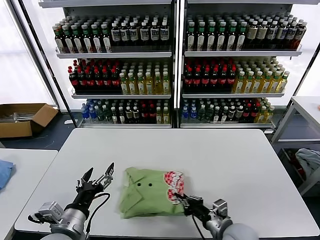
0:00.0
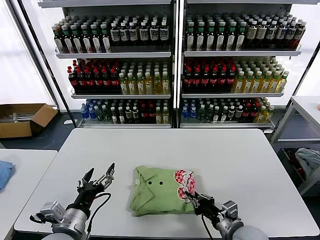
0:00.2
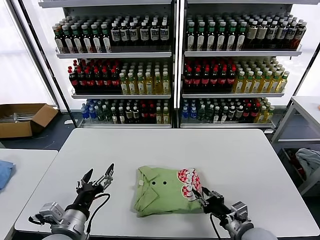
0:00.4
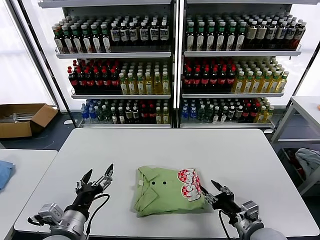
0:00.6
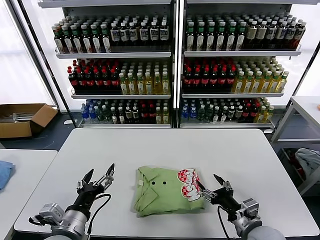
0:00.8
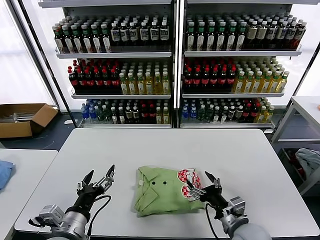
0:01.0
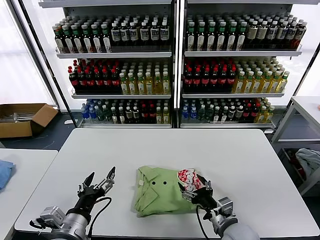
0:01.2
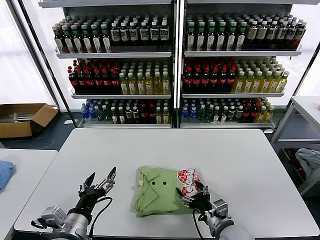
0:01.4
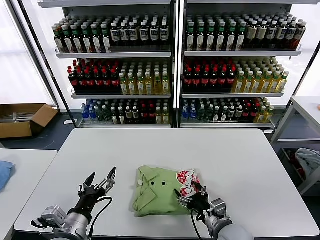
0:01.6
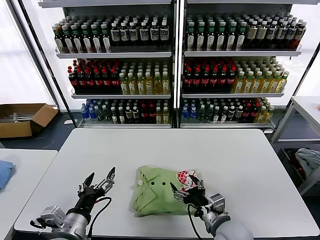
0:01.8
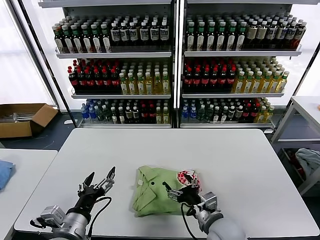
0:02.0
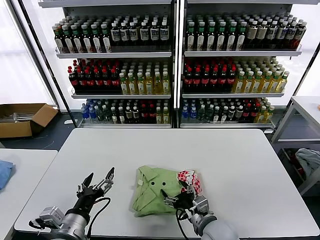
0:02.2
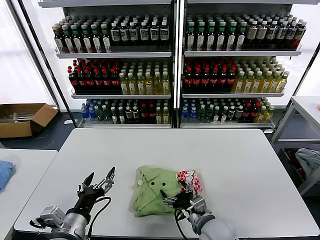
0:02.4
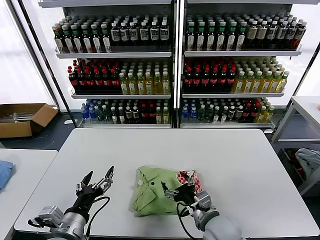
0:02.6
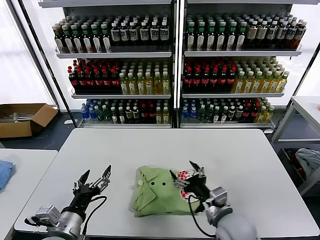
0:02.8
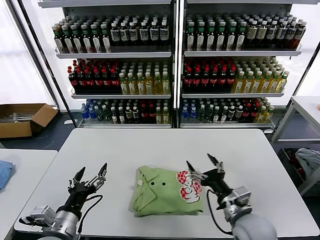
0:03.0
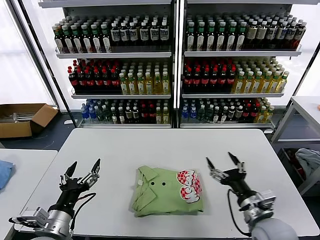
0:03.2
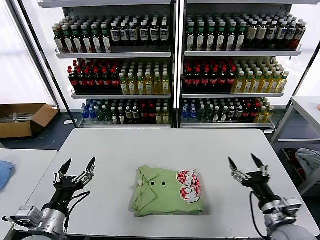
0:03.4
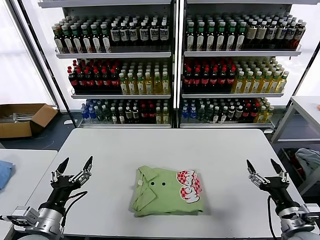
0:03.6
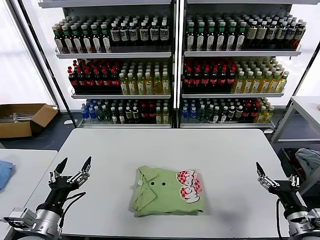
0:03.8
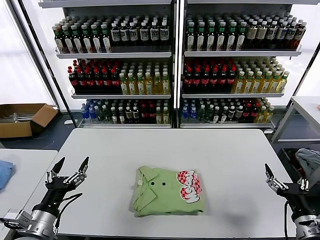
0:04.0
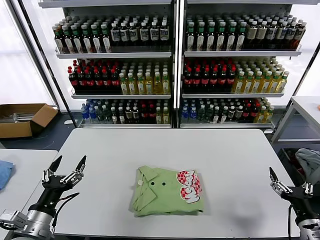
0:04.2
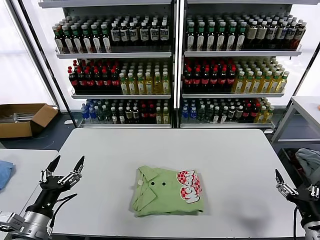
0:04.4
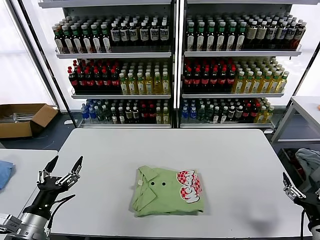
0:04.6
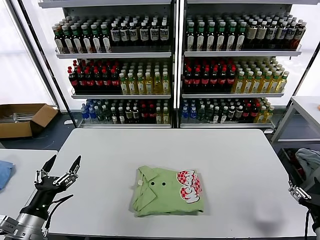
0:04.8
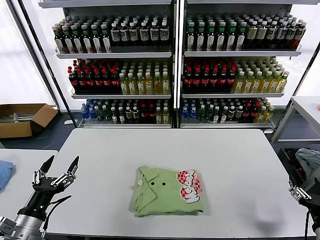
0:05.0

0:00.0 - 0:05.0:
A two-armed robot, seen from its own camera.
Task of the whole recording: fold and organize the clothes.
Step, 0:00.0 - 0:02.4: Drag the clothes to the center of the table.
0:00.0 - 0:01.6: The right gripper goes to the right and returns, roughly 5 cm each way, and opens.
0:01.6 - 0:03.4: The left gripper is displaced to the left by about 5 cm. The right gripper goes about 15 cm to the right and upward.
0:03.4 - 0:05.0: The left gripper goes roughly 5 cm to the left. Meanwhile the right gripper goes about 15 cm to the right and backward.

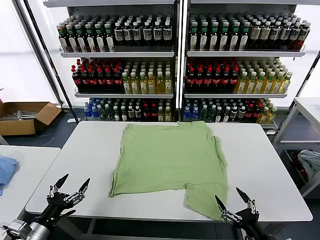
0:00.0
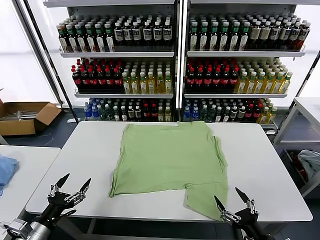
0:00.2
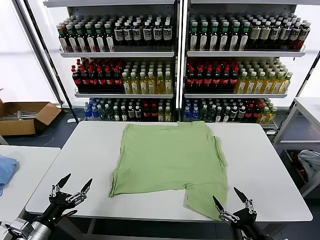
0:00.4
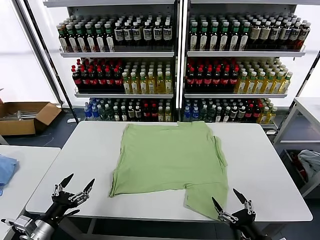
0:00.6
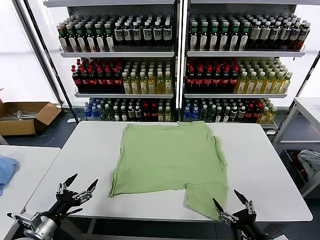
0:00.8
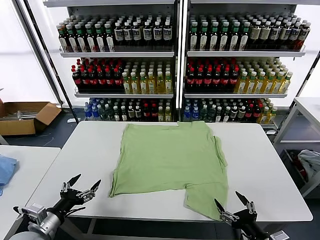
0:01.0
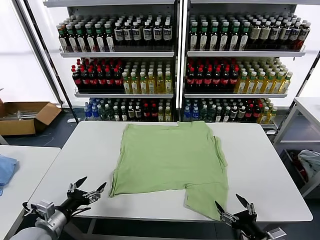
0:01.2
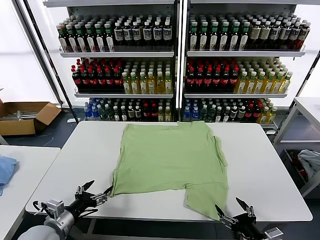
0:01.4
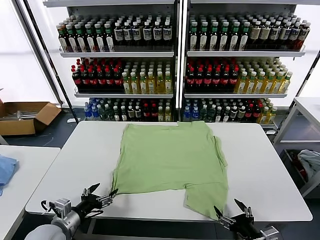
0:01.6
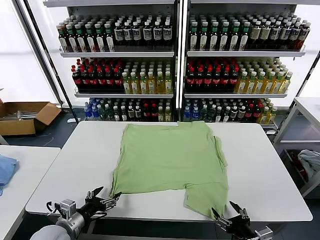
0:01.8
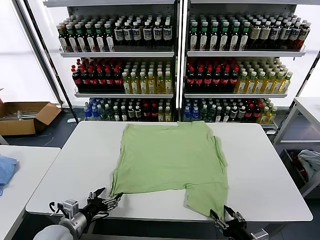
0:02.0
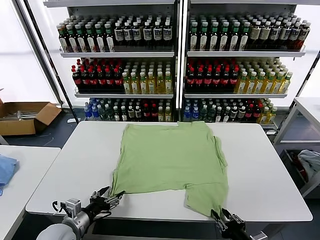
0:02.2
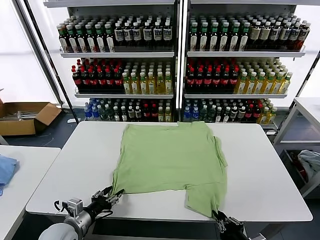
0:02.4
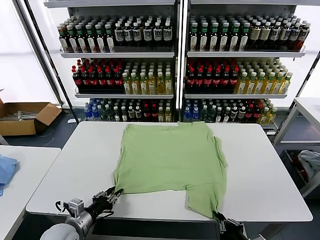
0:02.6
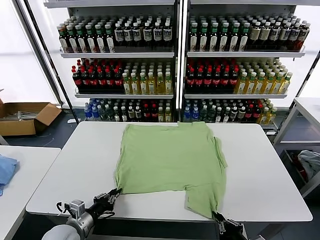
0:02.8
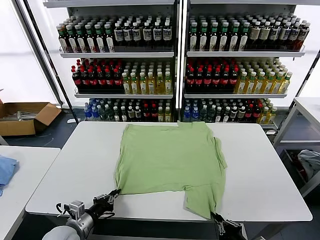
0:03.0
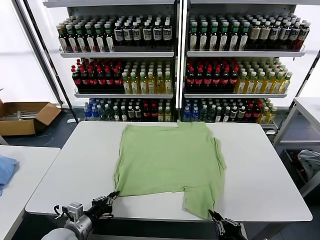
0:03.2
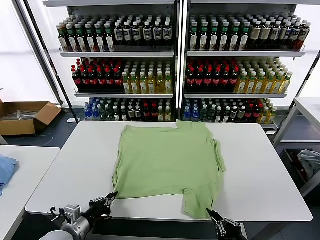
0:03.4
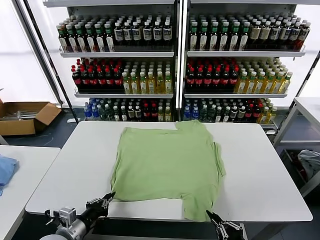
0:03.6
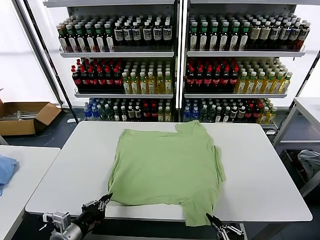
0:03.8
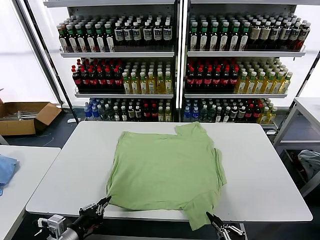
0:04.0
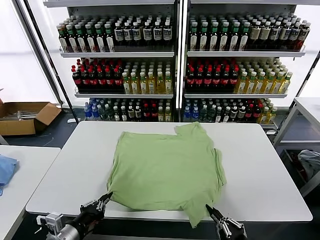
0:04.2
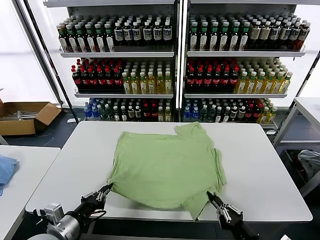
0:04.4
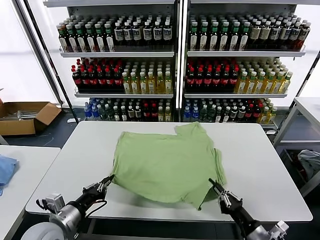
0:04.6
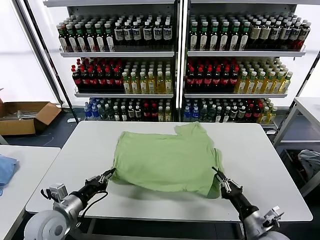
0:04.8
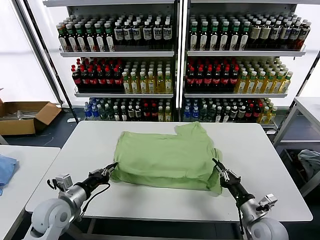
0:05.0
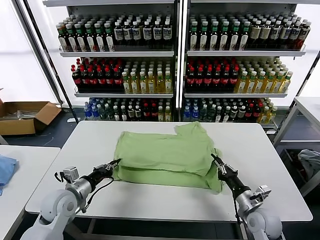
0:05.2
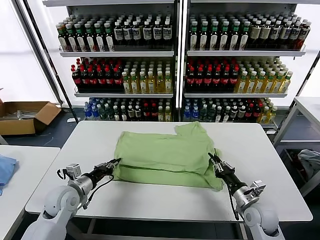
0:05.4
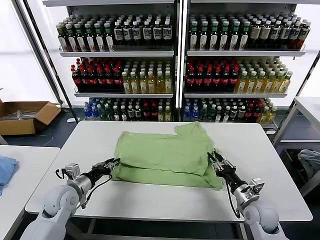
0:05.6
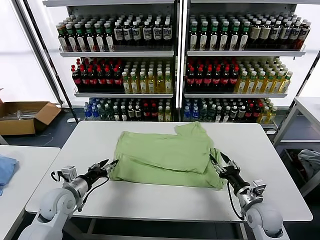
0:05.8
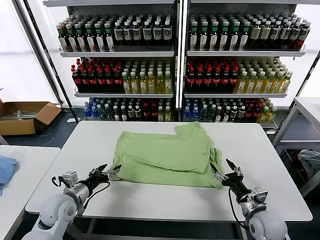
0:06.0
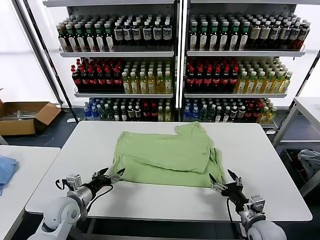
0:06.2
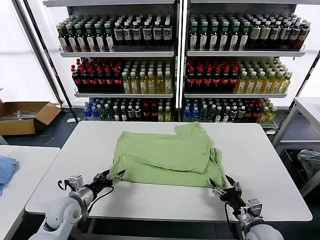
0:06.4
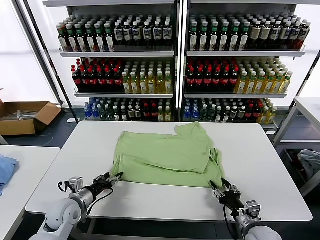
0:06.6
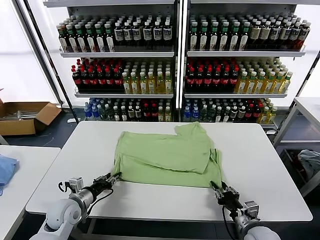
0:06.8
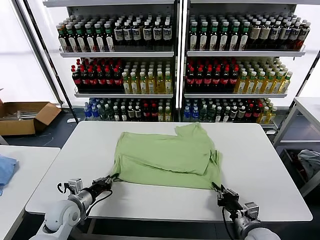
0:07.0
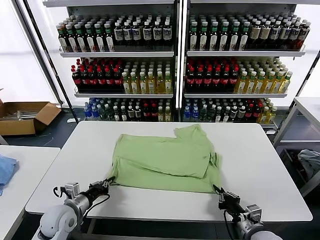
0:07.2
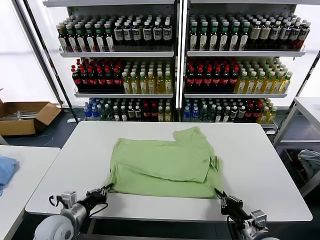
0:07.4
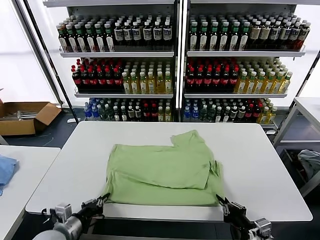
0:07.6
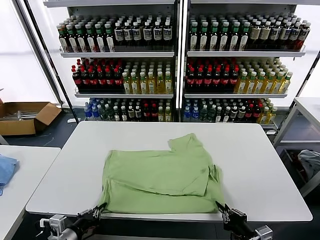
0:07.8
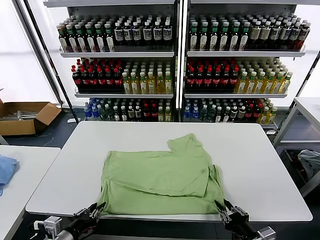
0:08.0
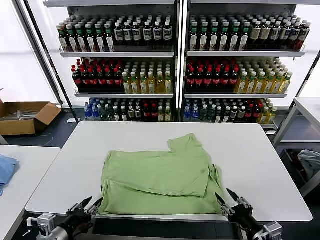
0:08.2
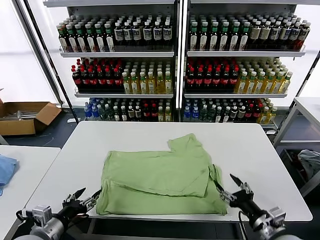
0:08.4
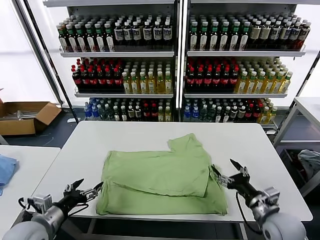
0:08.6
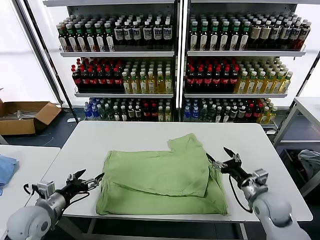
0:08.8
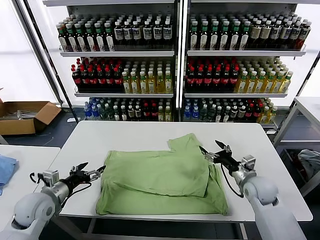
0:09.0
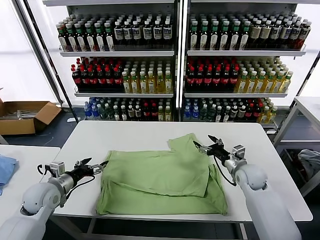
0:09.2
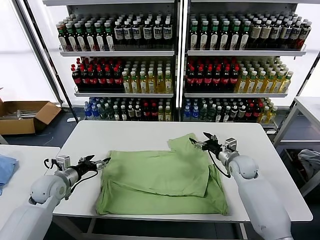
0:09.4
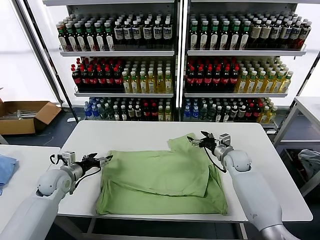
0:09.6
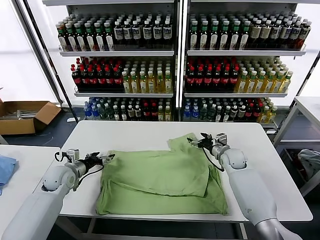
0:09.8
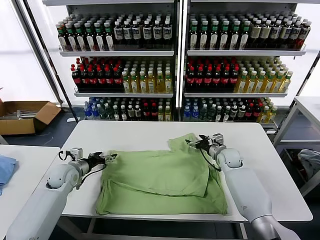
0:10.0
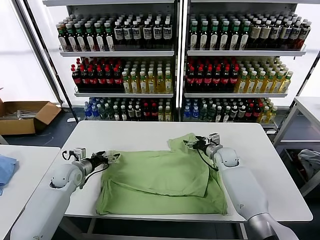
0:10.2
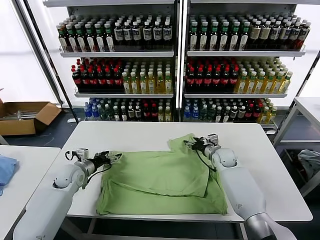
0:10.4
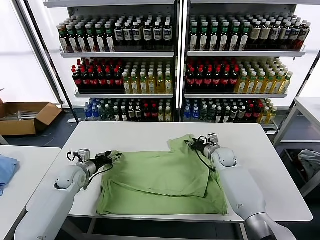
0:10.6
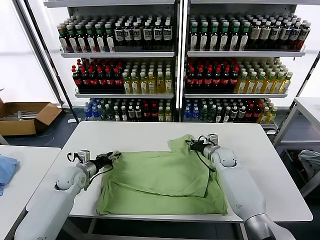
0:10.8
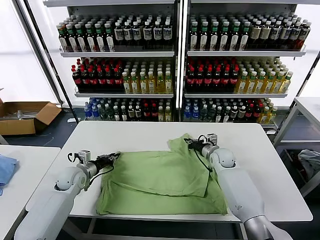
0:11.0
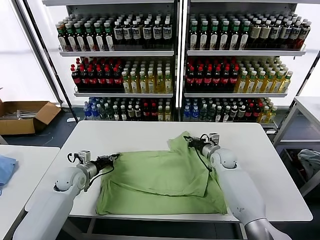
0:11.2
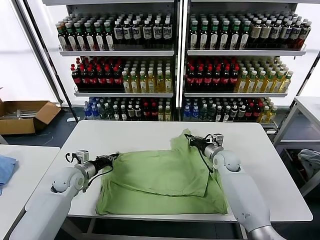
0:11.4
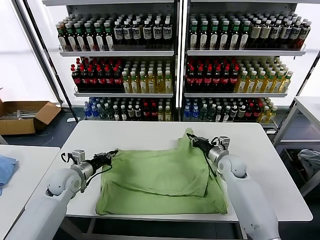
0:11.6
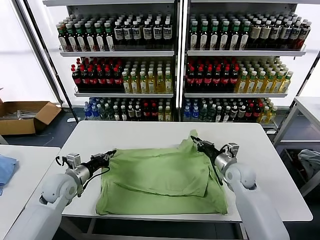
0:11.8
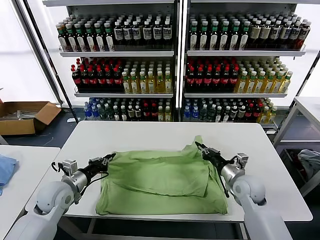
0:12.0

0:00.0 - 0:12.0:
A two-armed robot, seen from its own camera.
Task of the whole recording: fold and organize the clothes.
Step, 0:00.0 - 0:03.0: use both grippers simultaneously to clamp the lower edge of the clothing fabric.
Step, 0:03.2 - 0:05.6: use both grippers to drag the lower edge of the fabric forward and fold it over the upper edge.
Step, 0:05.8 - 0:08.0: Drag the clothes downward with both gripper.
Step, 0:08.2 - 0:11.0: use both grippers simultaneously to clamp the upper edge of the clothing fabric.
0:01.6 - 0:03.0: The right gripper closes, while the left gripper closes its fingers.
0:03.0 - 0:04.4: The left gripper is displaced upward by about 10 cm.
0:04.4 - 0:06.0: The grippers both shift forward by some 10 cm. The right gripper opens. The left gripper opens up.
0:06.0 - 0:07.6: The grippers both shift backward by about 10 cm. The left gripper closes its fingers. Meanwhile the right gripper closes.
0:07.6 - 0:09.0: The left gripper shifts approximately 10 cm forward, to the left and upward, and opens. The right gripper moves forward, about 25 cm, and opens up.
0:09.0 - 0:10.4: The left gripper is displaced forward and downward by about 15 cm; the right gripper moves forward and to the left, approximately 15 cm, and closes its fingers.
0:10.4 - 0:12.0: The right gripper goes some 15 cm backward, and closes its fingers; the left gripper is displaced backward and upward by about 10 cm, and closes.

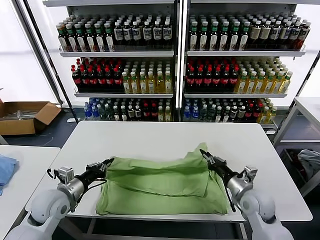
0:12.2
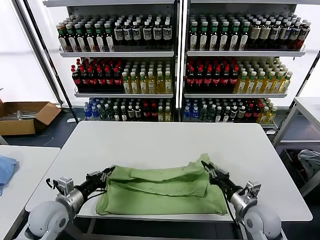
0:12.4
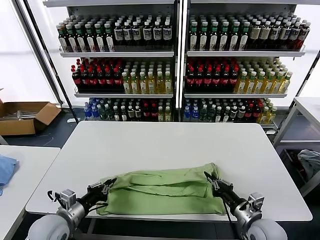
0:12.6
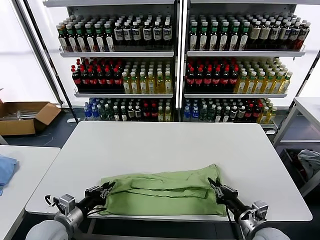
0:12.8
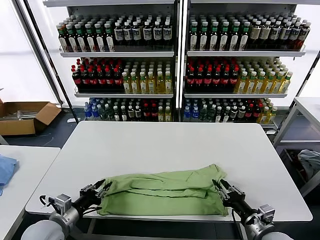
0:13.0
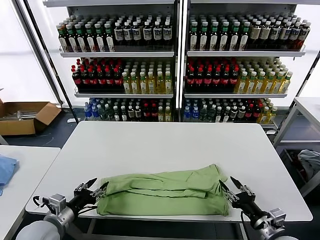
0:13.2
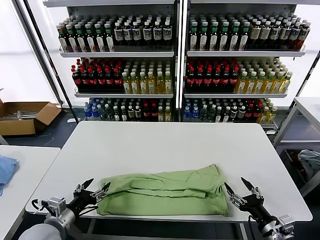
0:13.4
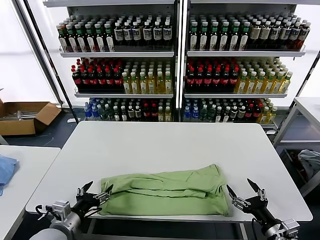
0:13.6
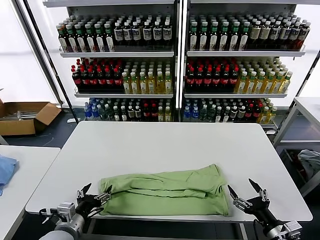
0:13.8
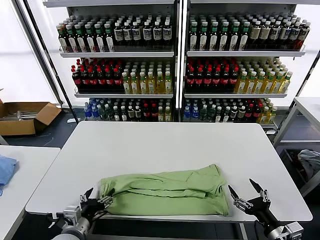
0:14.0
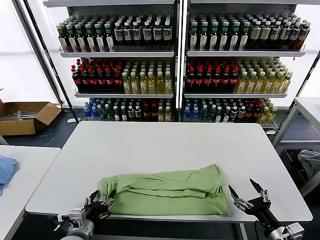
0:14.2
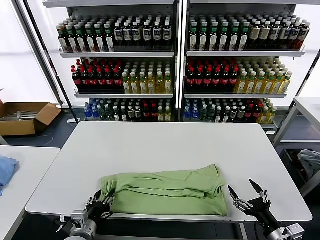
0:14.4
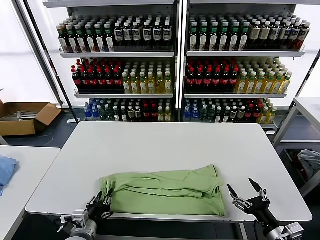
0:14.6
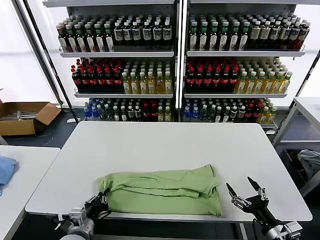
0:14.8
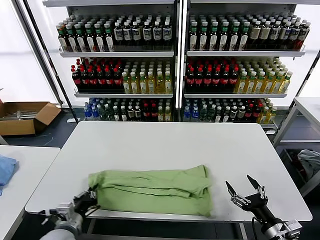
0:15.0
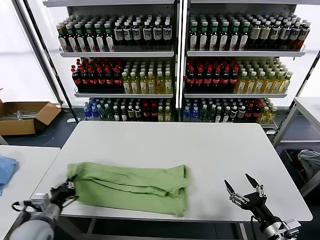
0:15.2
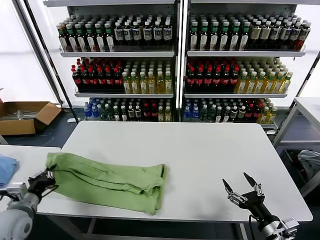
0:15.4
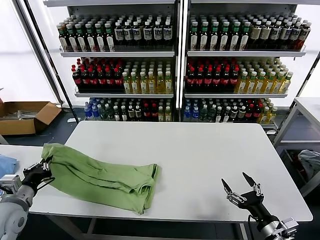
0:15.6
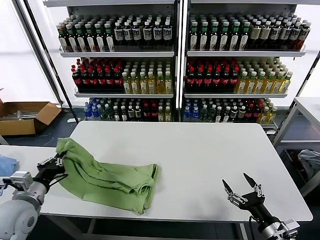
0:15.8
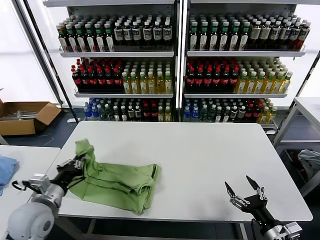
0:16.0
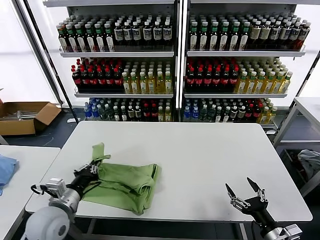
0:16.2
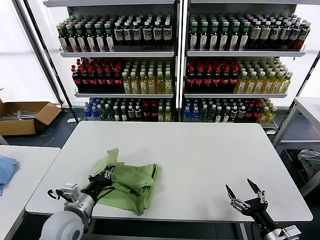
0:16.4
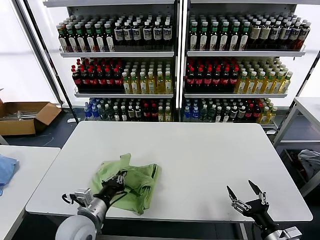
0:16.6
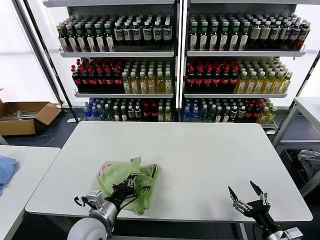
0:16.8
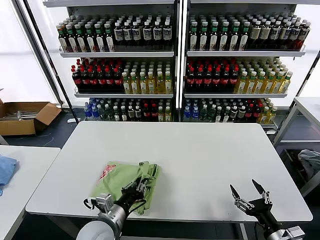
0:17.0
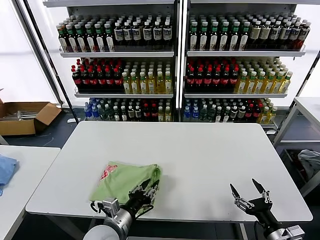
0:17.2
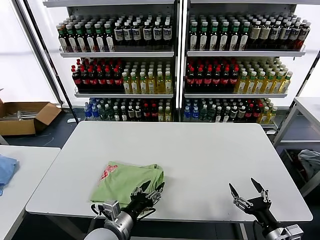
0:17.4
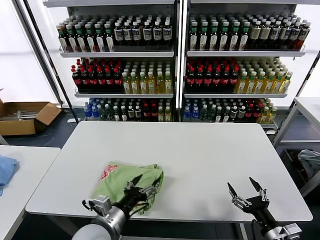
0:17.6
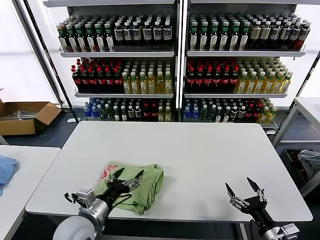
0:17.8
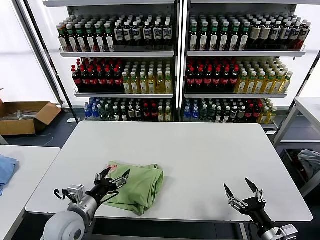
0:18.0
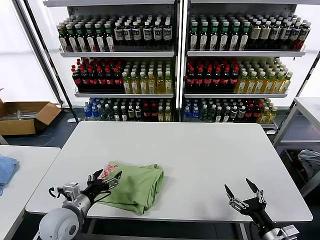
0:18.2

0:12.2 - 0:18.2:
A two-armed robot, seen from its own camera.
Task of the whole recording: fold and organize the clothes.
Step, 0:12.2 - 0:13.2: use both grippers to drag the upper edge of the fabric backward and fold it over the lower edge.
Step, 0:13.4 - 0:14.6: use the left gripper to clamp the left edge of the fabric.
Step, 0:14.8 - 0:17.2: use the left gripper to drag the left edge of the fabric to the left and folds it over the right edge.
0:12.2 - 0:13.8: The right gripper shifts roughly 15 cm backward and to the right, and opens up. Meanwhile the left gripper heads backward, covering roughly 10 cm, and opens its fingers.
0:13.8 - 0:15.2: The left gripper travels to the left by about 5 cm, and closes up.
0:15.2 - 0:16.6: The left gripper shifts about 10 cm to the right.
0:16.6 - 0:18.2: The left gripper opens.
